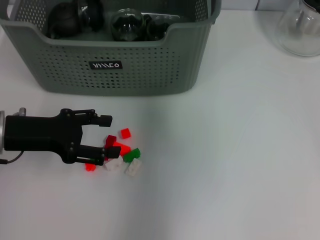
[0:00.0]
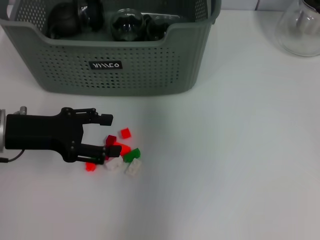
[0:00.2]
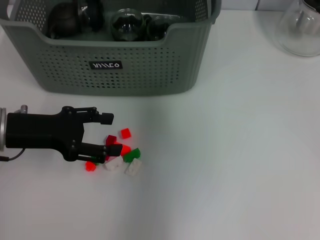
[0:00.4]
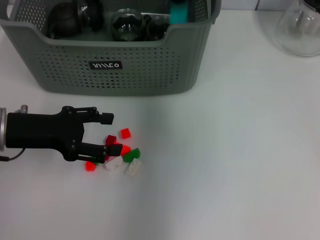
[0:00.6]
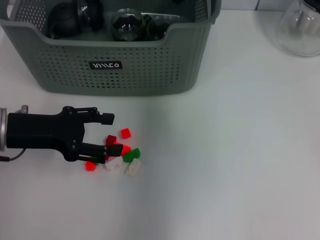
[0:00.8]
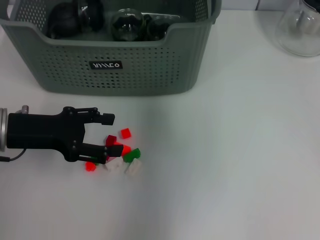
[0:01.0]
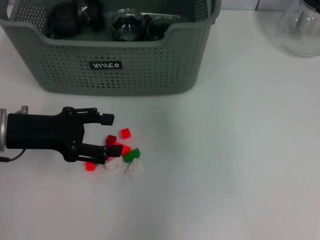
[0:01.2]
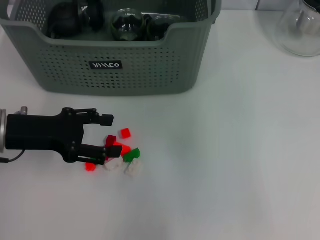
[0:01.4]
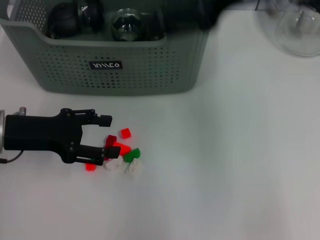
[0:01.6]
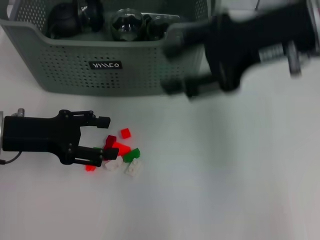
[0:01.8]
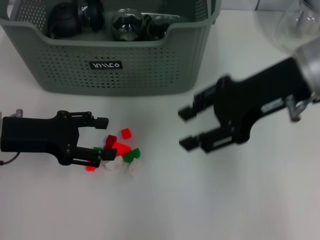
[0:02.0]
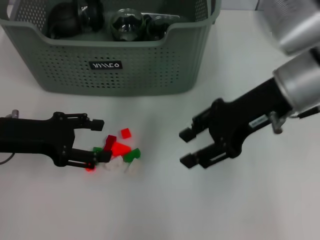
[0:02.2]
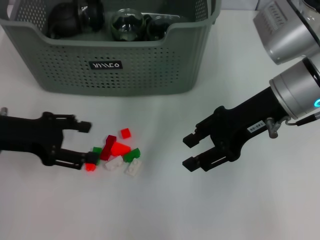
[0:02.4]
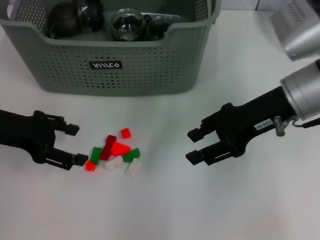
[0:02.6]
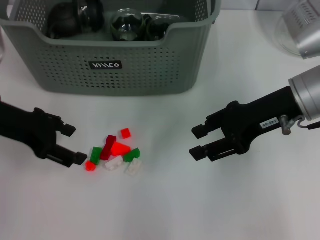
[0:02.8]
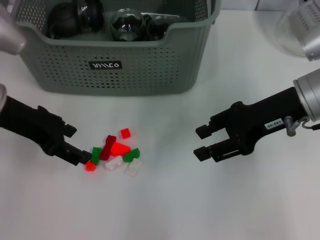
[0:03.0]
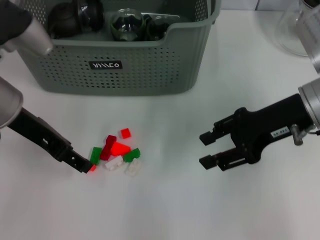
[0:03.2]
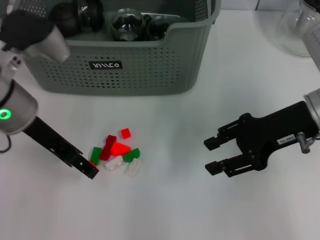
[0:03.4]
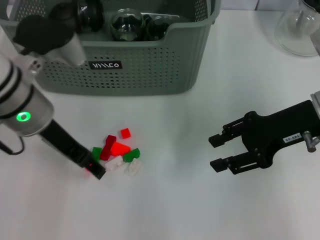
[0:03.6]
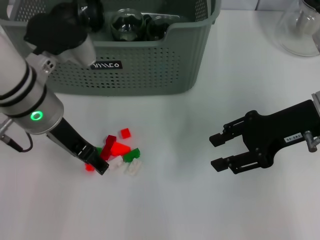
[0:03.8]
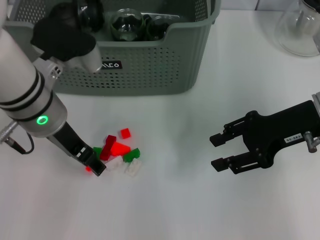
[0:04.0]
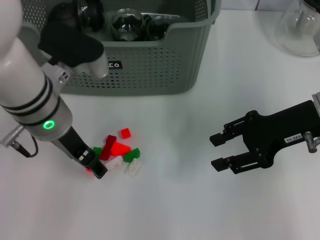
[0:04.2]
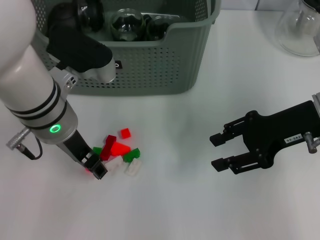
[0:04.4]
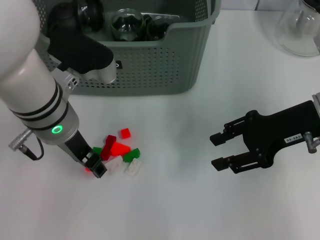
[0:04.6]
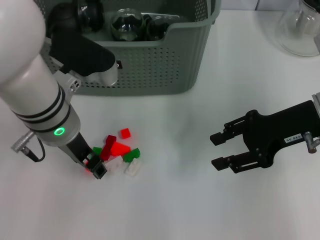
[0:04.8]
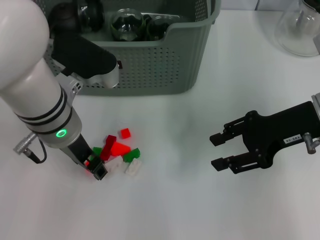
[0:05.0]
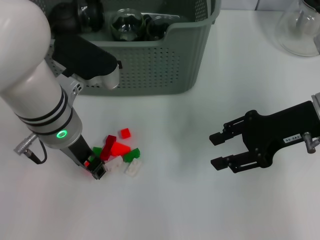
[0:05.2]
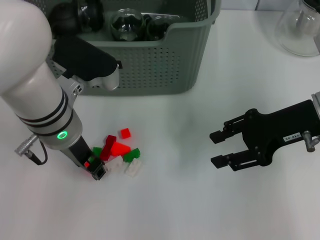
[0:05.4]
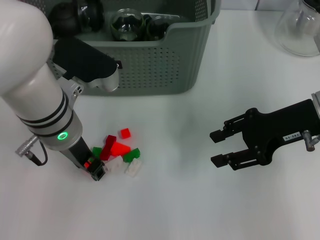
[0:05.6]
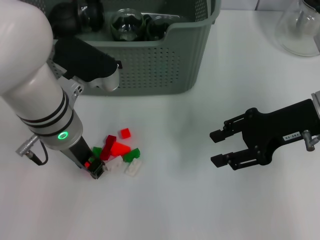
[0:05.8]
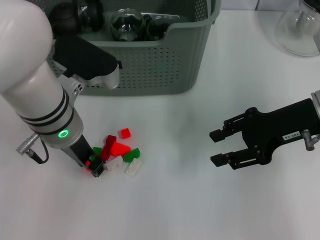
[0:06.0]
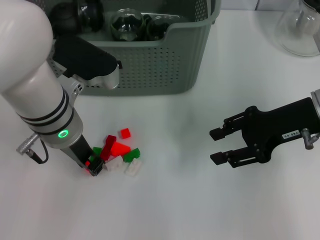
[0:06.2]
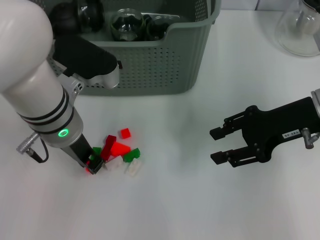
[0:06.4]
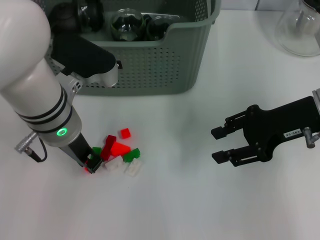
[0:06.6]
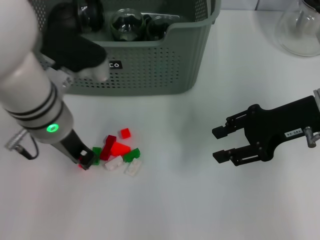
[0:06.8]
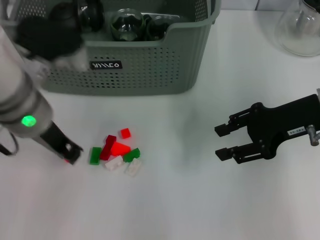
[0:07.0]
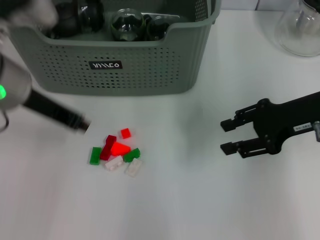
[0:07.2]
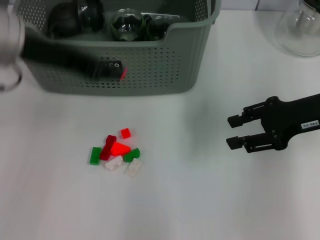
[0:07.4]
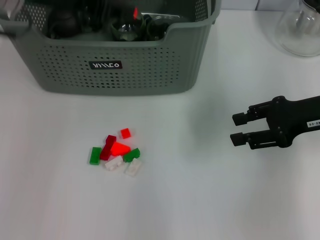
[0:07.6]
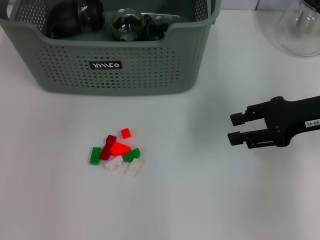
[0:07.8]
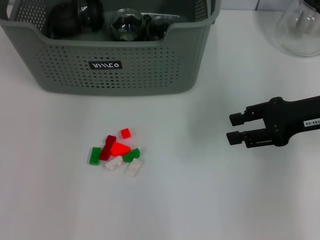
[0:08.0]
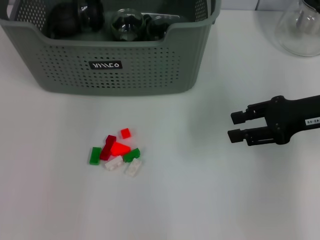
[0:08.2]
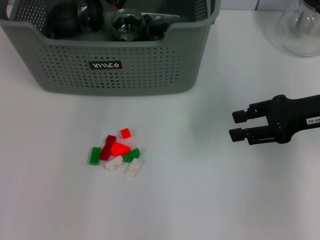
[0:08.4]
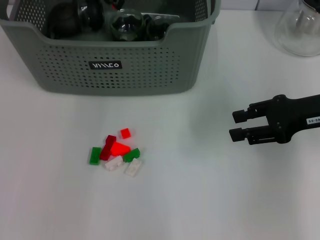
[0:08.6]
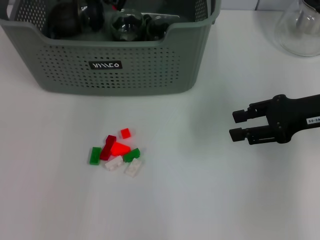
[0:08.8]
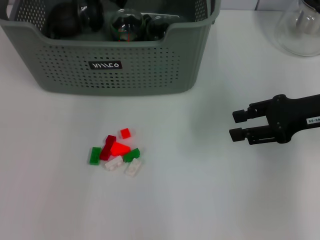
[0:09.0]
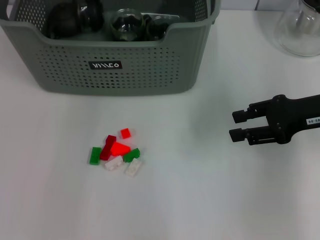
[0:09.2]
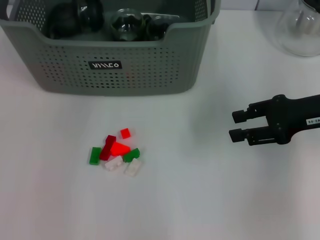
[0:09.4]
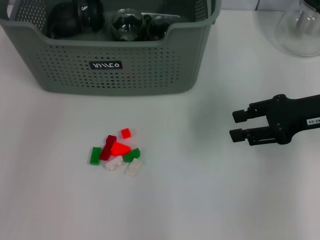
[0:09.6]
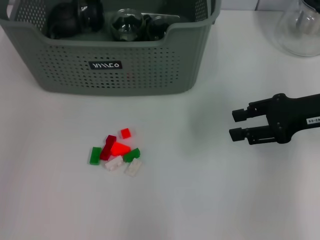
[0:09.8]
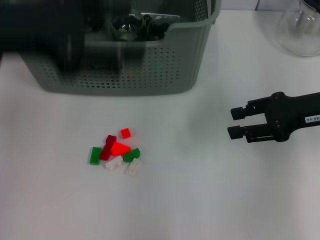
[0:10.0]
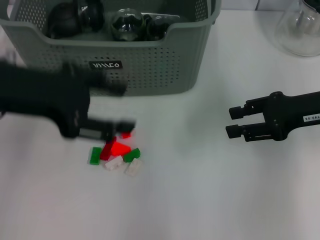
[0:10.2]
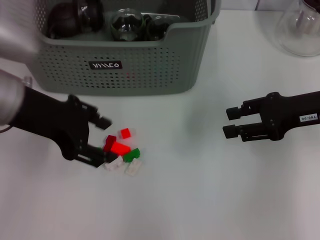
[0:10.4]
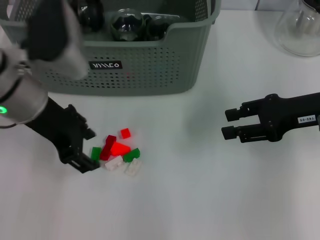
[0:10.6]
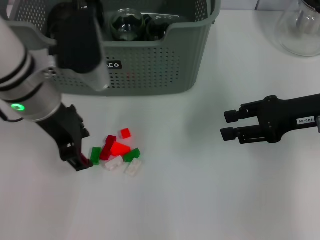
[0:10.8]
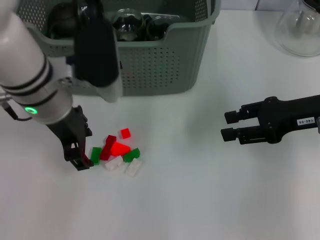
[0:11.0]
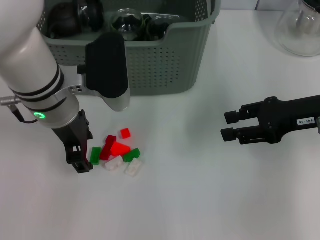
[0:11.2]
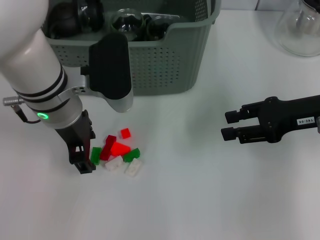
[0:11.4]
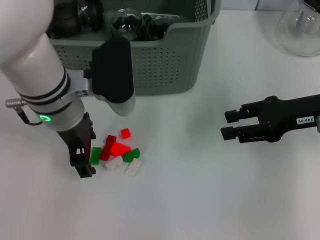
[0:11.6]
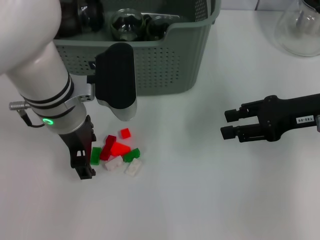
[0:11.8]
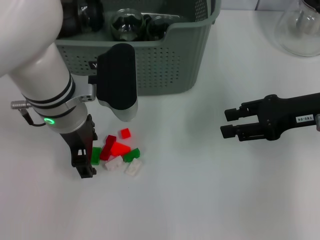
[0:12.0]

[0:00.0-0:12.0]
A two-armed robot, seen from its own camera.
Task of the whole recording: pick up the teacup on the table and place it into the storage bin, pick up the block on the table and place it into the storage bin.
Step, 0:01.0 to 0:06.6: Grasp the orange block with left gripper.
Step, 0:06.8 to 0:09.0: Place the orange block in the storage box with left gripper.
0:00.0 to 0:01.6: The right gripper travels backward by some 10 cm.
0:01.6 to 0:03.0: The right gripper goes about 15 cm downward. Meanwhile the left gripper goes some 5 cm upward.
0:03.0 to 0:04.4: The left gripper moves to the right, approximately 10 cm.
0:04.4 to 0:06.0: The left gripper closes.
0:06.0 to 0:07.6: The left gripper moves upward, approximately 15 cm.
0:07.6 to 0:09.0: The left gripper heads forward, covering some 10 cm.
0:09.0 to 0:10.4: The left gripper heads backward, covering about 15 cm, and opens its fingers.
0:10.4 to 0:12.0: The left gripper moves to the right and downward, some 10 cm.

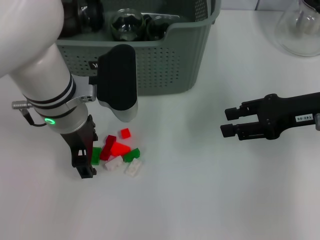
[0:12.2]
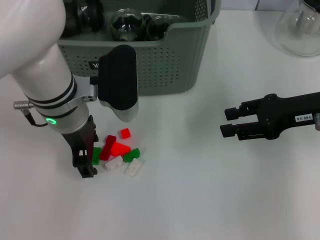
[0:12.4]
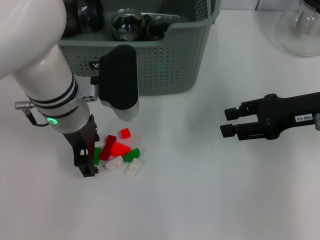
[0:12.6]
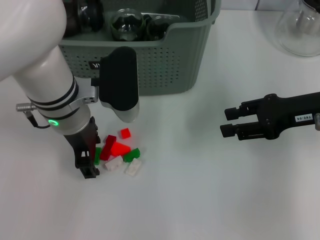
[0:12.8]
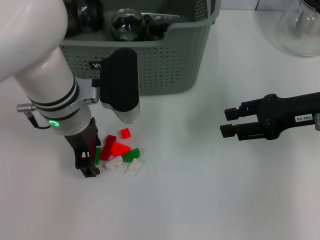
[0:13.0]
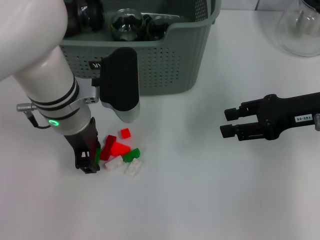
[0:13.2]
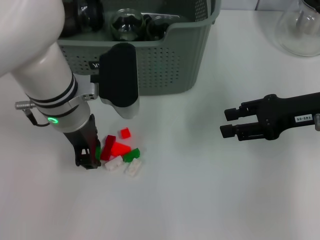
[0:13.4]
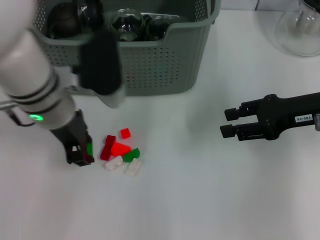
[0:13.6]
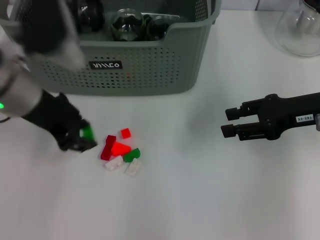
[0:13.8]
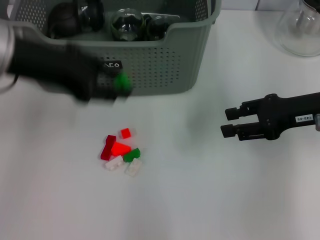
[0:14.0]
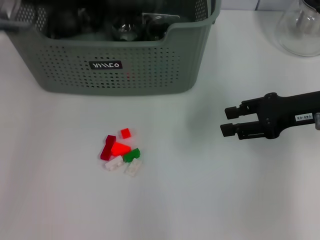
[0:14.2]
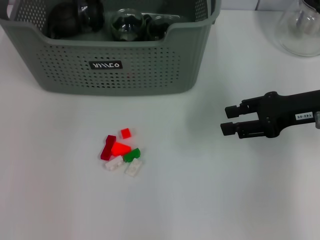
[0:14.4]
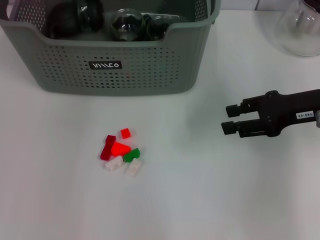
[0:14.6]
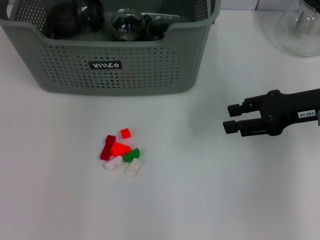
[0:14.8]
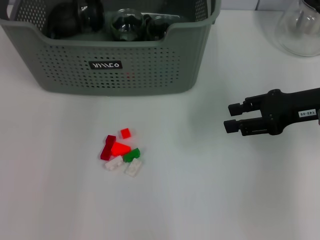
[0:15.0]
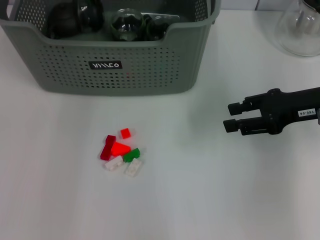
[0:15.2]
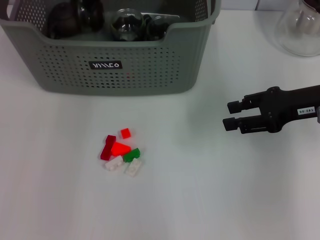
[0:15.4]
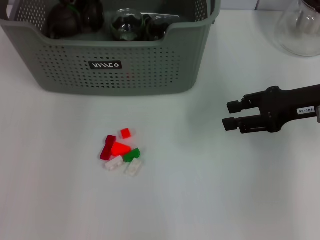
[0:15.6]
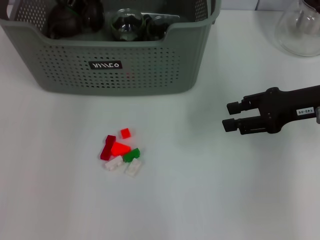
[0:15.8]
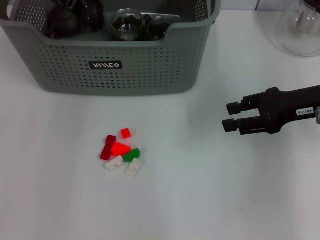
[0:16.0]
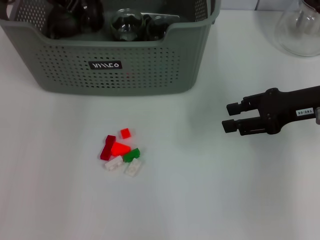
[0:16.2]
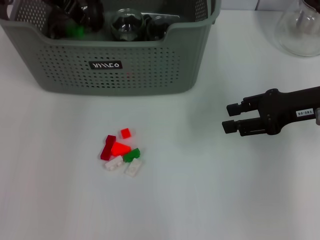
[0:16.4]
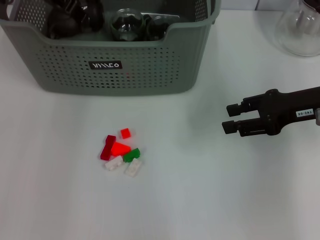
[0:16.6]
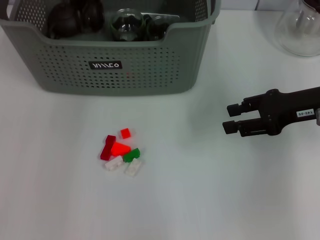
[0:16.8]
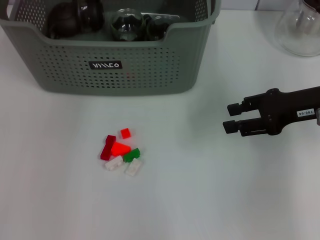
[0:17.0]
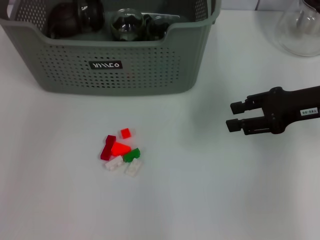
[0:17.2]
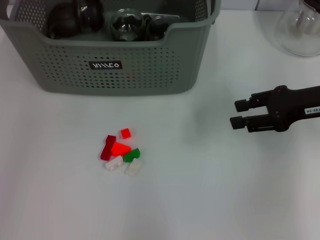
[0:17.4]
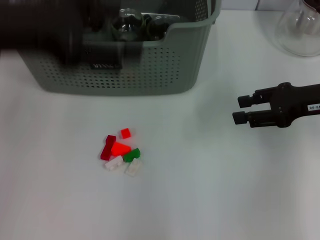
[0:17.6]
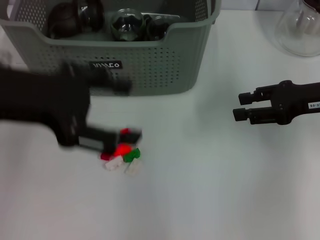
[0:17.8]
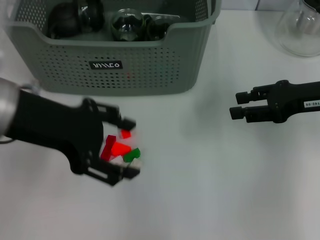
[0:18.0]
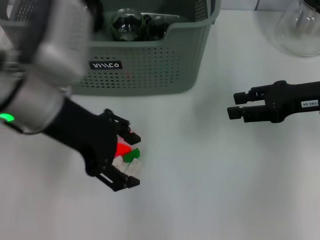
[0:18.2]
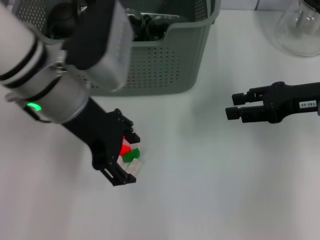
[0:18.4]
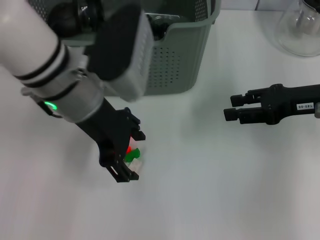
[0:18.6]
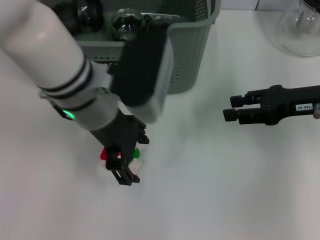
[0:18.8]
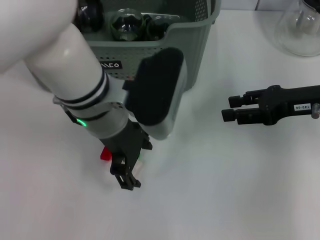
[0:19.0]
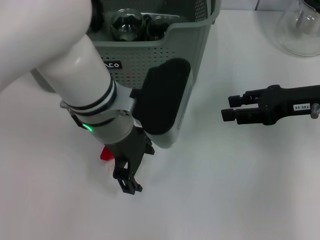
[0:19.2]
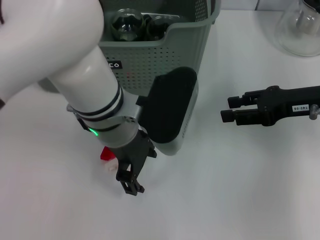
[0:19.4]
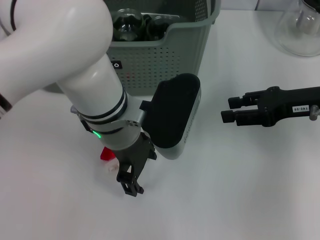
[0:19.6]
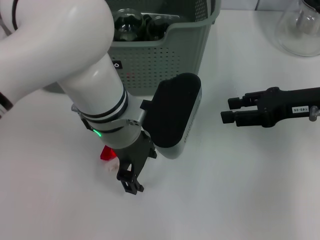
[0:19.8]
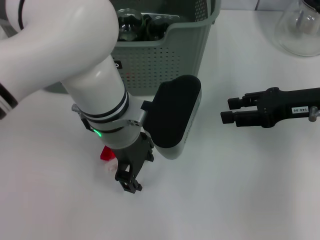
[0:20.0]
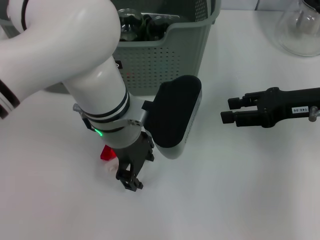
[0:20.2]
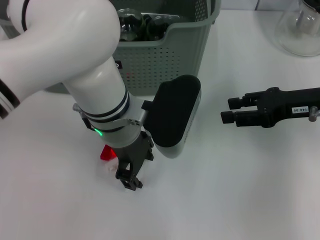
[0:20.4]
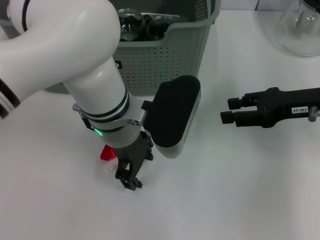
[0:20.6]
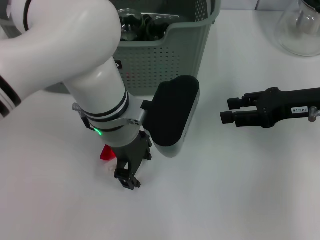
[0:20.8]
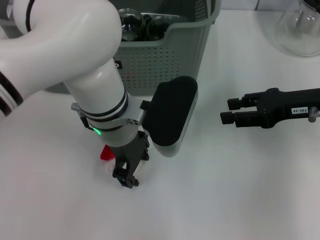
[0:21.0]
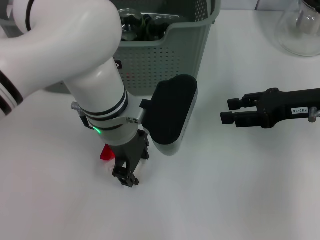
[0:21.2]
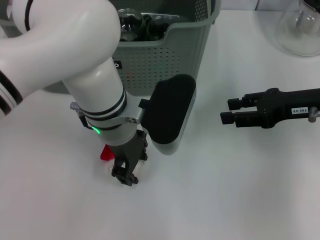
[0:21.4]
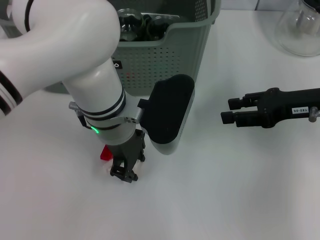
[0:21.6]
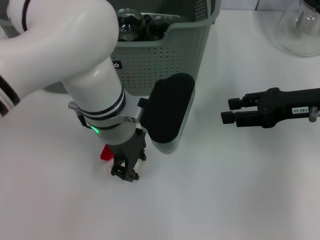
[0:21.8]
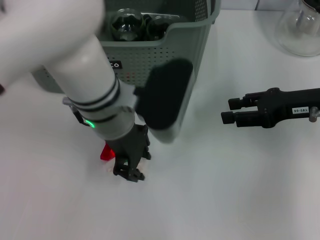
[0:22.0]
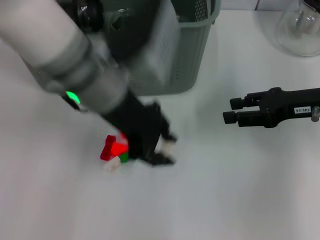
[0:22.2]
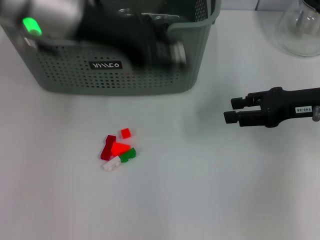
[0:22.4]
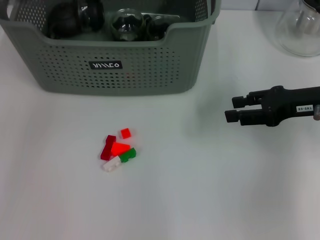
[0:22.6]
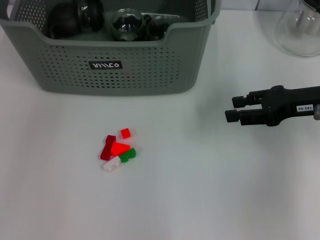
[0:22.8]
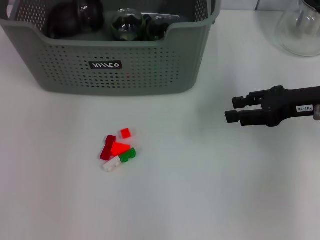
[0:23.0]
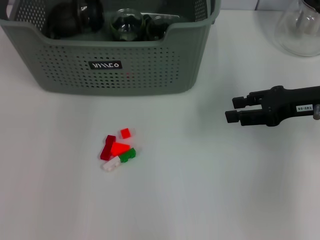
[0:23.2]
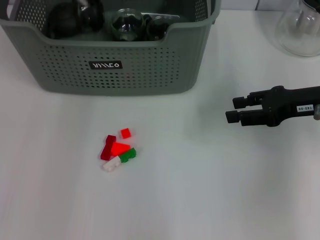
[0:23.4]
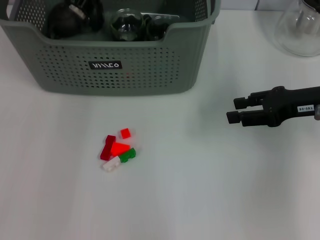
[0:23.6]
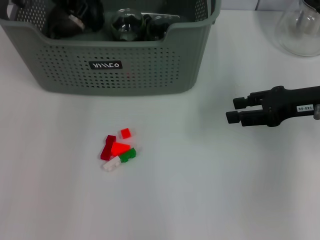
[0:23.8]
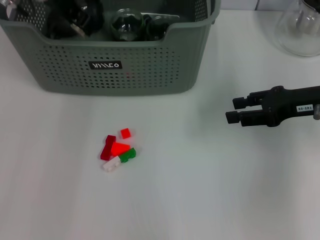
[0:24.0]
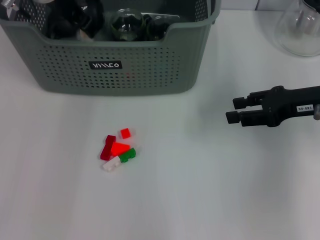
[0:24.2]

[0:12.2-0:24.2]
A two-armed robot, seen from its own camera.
Task of the whole recording: pick up the teacup on the table and place it into the storage bin, pick up the block on the table and place it into the storage bin.
Step, 0:13.6 to 0:16.8: Place the green block in the storage box with left gripper.
Step, 0:17.0 to 0:21.6: Grasp the white block with left gripper.
0:12.2 to 0:13.8: The left gripper is displaced to the left and upward by approximately 10 cm, and closes its fingers.
0:13.8 to 0:15.2: The left gripper travels forward and upward by roughly 15 cm.
0:15.2 to 0:16.6: The grippers make only small movements.
0:16.6 to 0:18.2: The left gripper heads backward and downward, covering some 15 cm, and opens.
0:18.2 to 0:19.8: The left gripper heads to the right and downward, covering roughly 10 cm.
0:19.8 to 0:21.2: The grippers move only a little.
0:21.2 to 0:22.6: The left gripper goes about 20 cm upward, to the left and forward.
